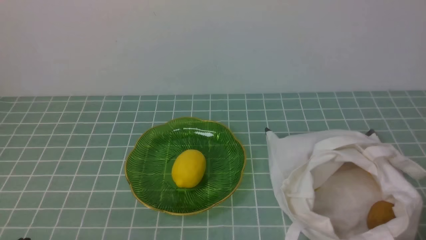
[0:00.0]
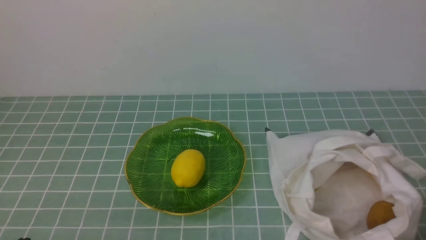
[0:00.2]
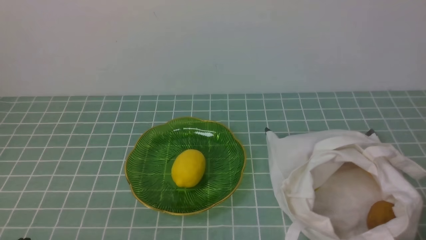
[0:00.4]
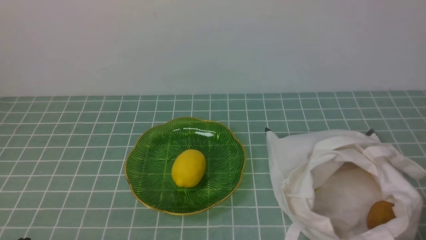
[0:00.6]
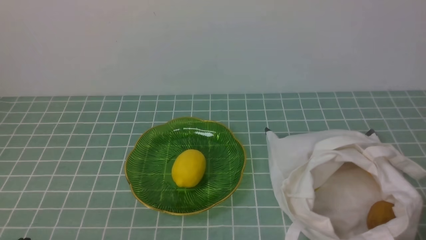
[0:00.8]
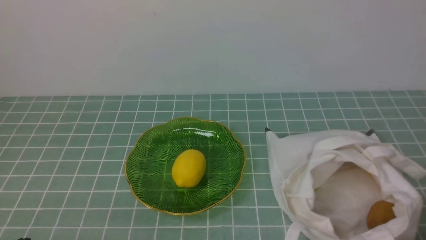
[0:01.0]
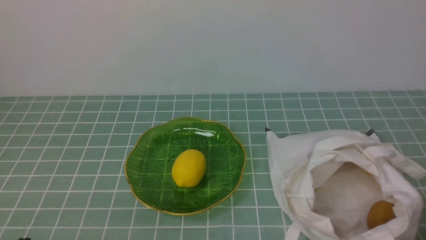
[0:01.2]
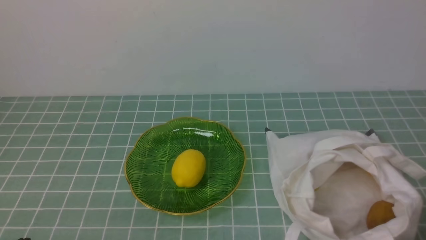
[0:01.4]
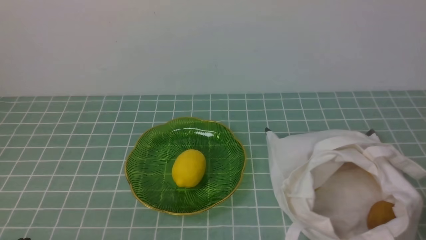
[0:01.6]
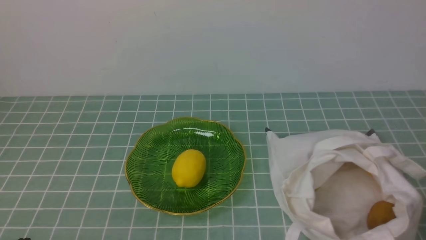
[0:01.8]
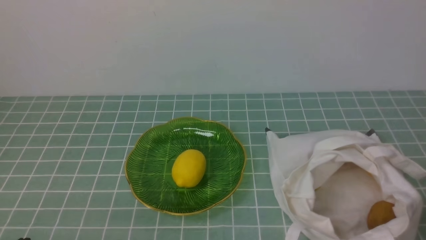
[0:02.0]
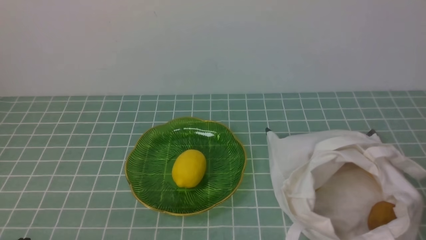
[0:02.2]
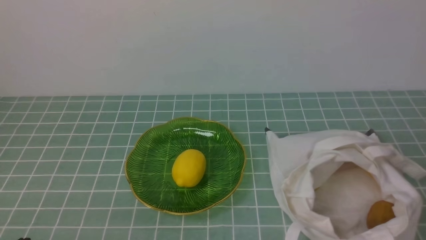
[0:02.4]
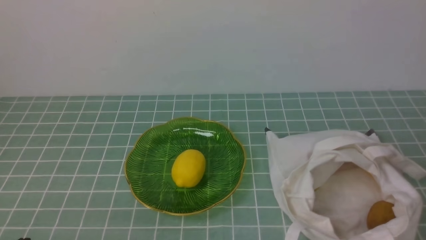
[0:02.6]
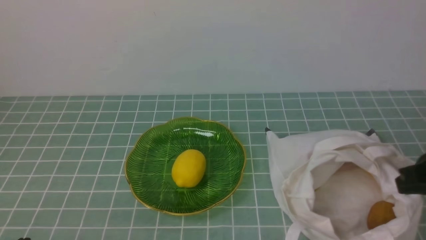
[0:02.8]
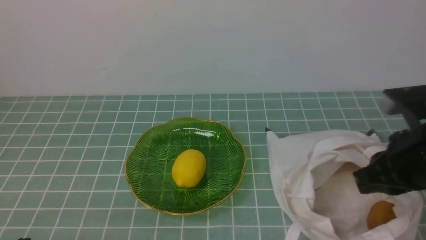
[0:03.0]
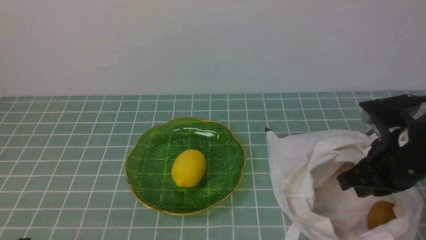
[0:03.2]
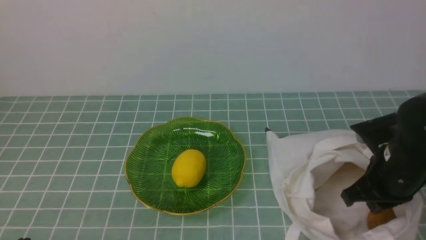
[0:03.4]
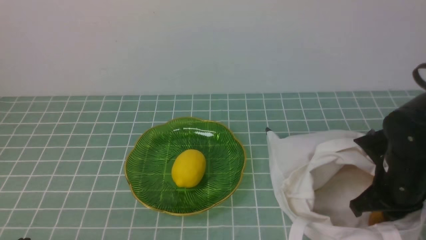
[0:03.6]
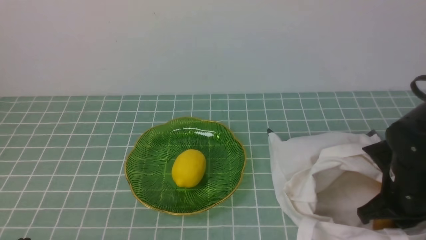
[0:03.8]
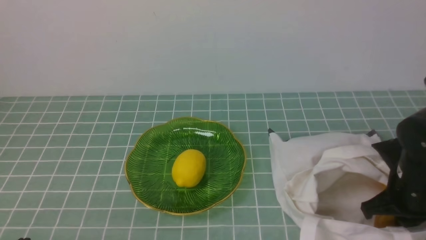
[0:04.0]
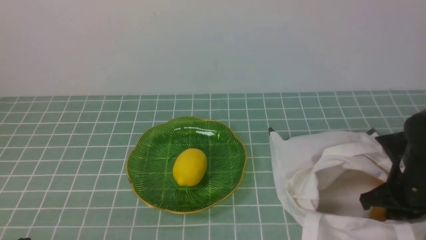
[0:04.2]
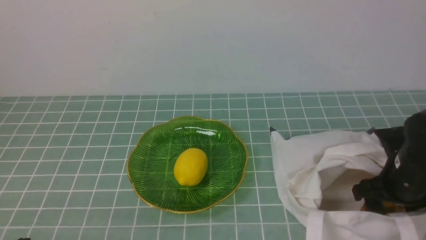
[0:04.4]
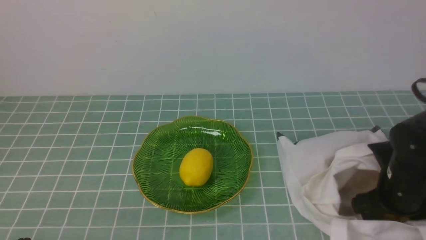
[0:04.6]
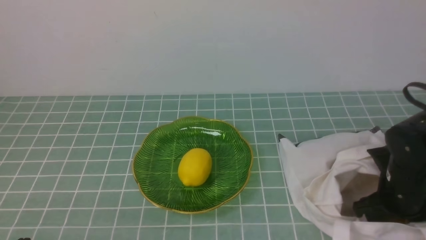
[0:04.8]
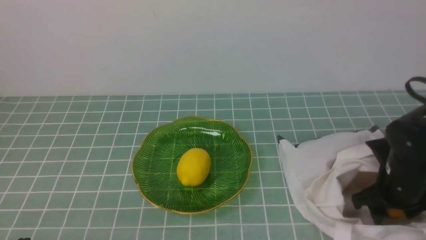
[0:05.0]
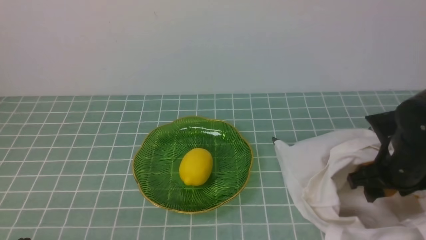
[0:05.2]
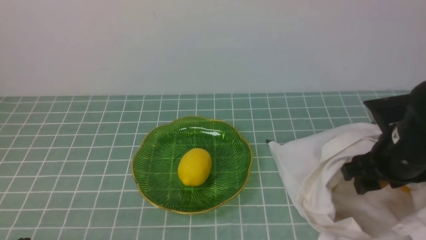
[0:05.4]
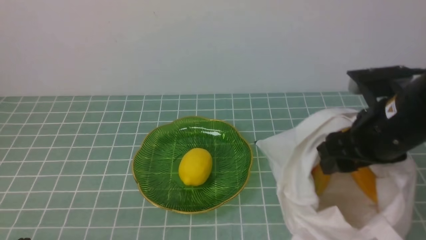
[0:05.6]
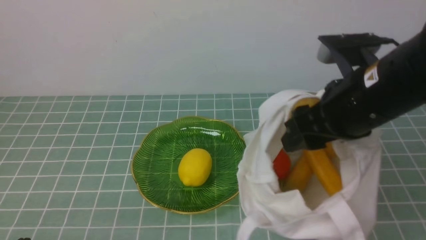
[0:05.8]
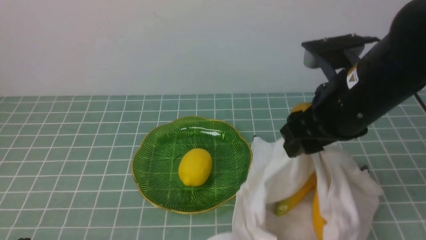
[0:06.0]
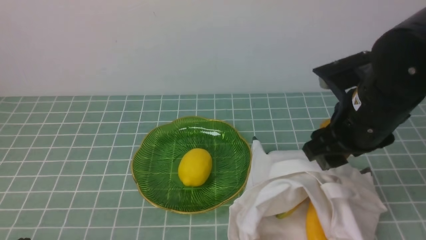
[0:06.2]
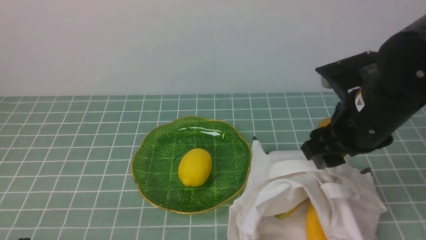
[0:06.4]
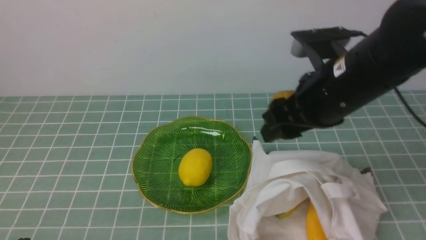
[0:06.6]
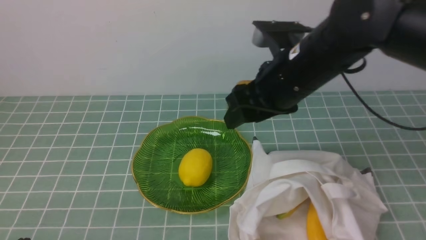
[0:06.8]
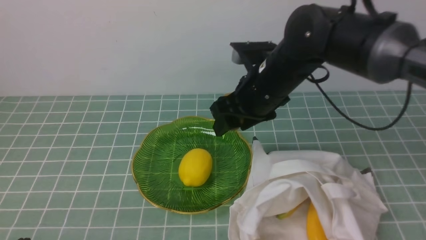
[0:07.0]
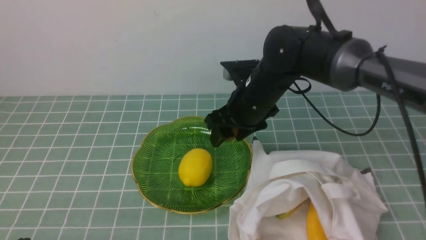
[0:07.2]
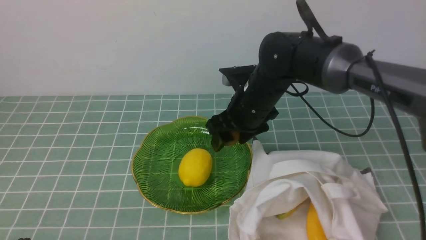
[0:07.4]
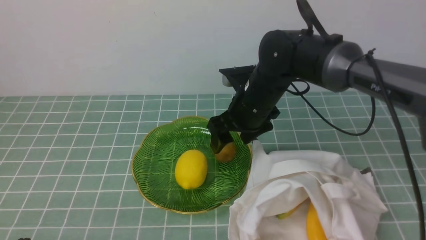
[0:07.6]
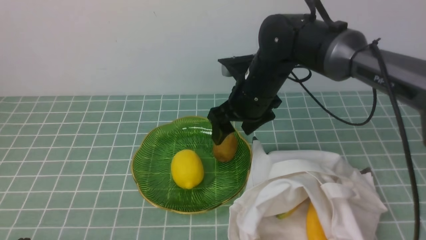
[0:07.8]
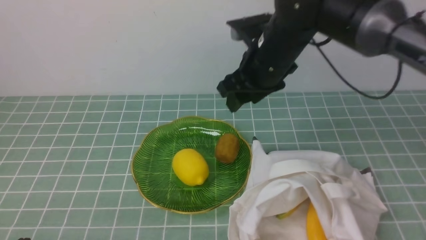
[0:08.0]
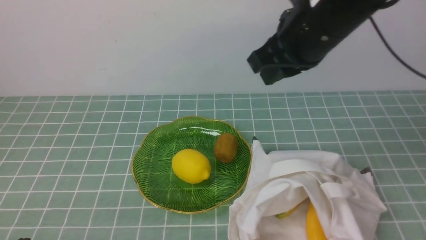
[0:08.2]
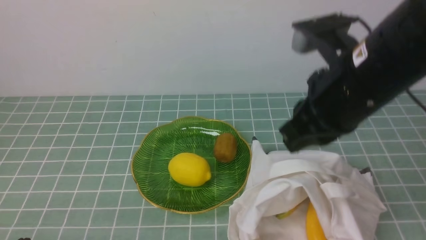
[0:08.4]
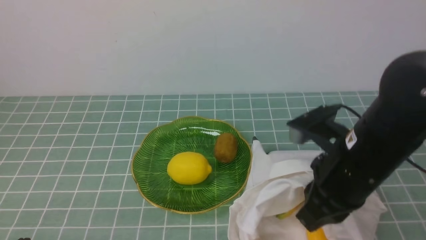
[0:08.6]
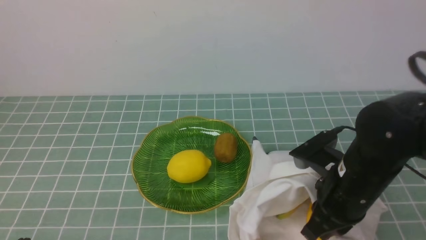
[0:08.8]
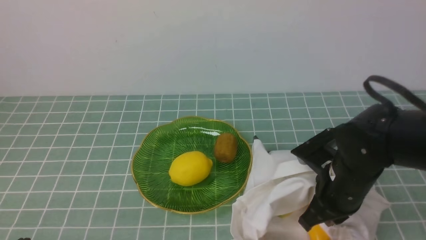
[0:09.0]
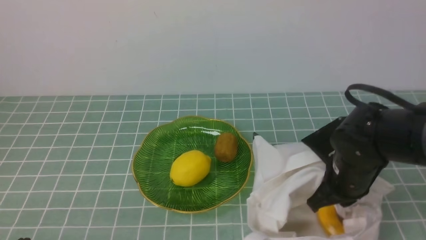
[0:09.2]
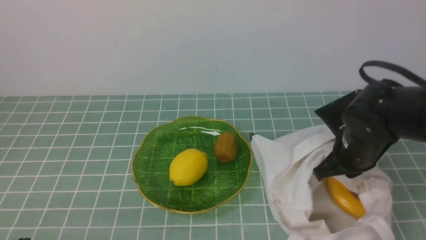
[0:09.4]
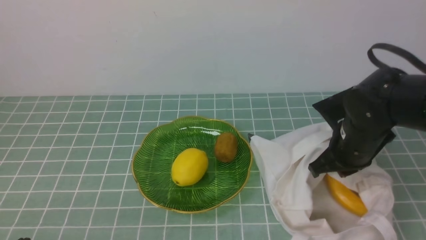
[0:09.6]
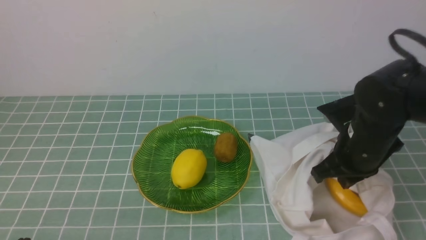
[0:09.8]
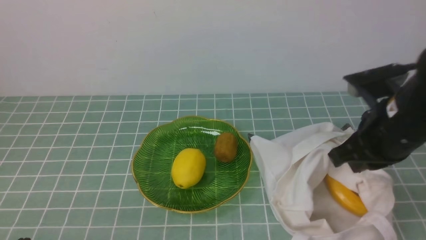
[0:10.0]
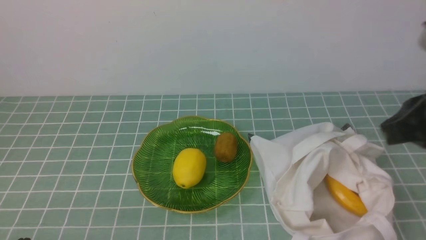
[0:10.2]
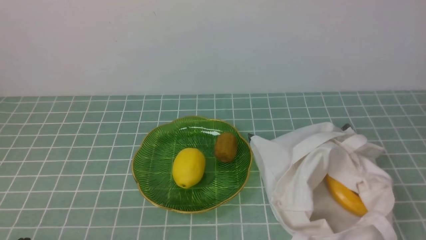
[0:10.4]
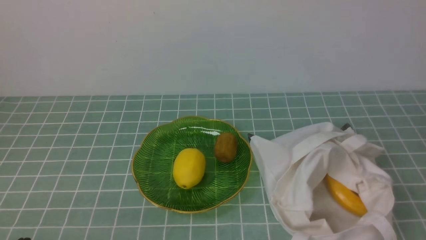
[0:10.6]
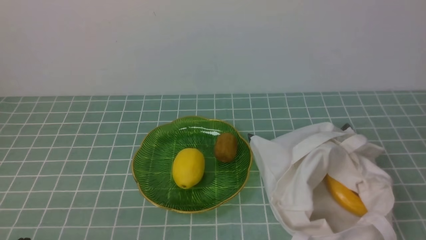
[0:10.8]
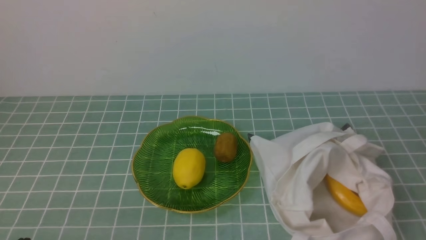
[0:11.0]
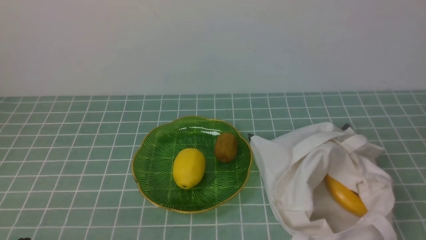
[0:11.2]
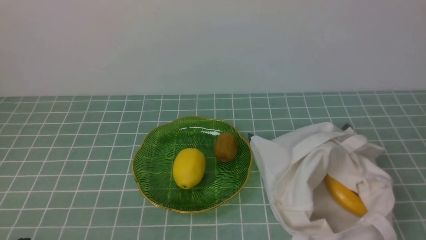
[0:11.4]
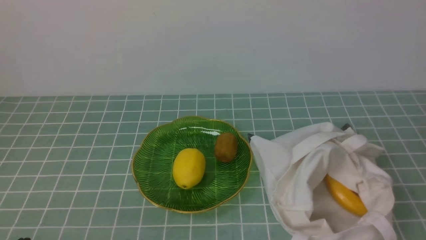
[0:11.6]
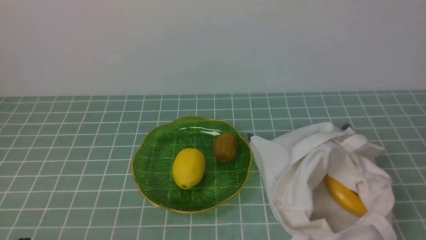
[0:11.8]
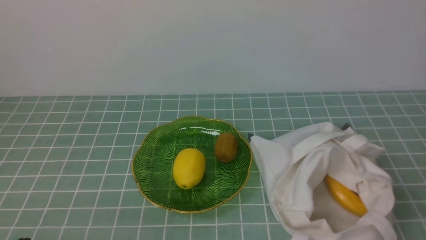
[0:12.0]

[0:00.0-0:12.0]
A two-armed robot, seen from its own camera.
Step, 0:00.0 to 0:06.0: use the right arm to grab a kiwi from the bag.
Step, 0:06.2 to 0:07.8: use the right arm to put the kiwi into the empty plate on the left.
0:01.6 to 0:03.0: The right gripper is displaced forward and upward by roughly 20 cm.
0:03.0 to 0:04.4: The right gripper is displaced downward by roughly 10 cm, and opens up.
0:04.4 to 0:06.0: The right gripper is displaced upward and to the left by some 20 cm.
0:06.0 to 0:07.6: The right gripper shifts about 20 cm forward, to the left and downward.
0:07.6 to 0:09.0: The right gripper travels backward and to the right by roughly 15 cm, goes upward and returns, about 15 cm each way, and closes its fingers.
0:09.0 to 0:10.4: The right gripper shifts approximately 30 cm upward, backward and to the right.
0:10.4 to 0:12.0: The right gripper moves downward, some 15 cm.

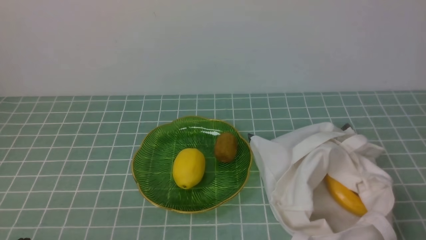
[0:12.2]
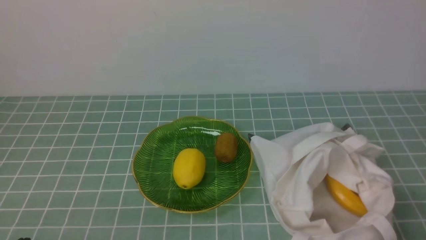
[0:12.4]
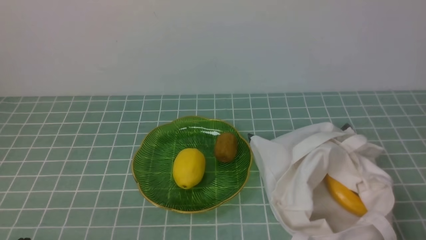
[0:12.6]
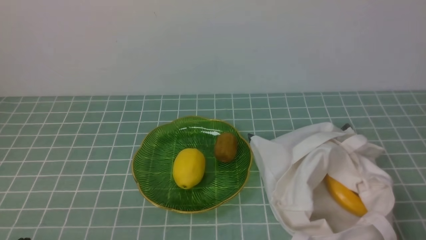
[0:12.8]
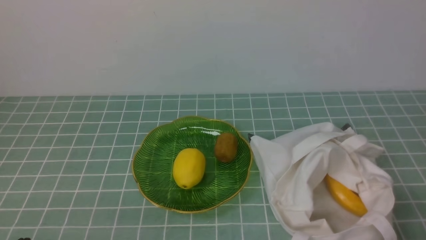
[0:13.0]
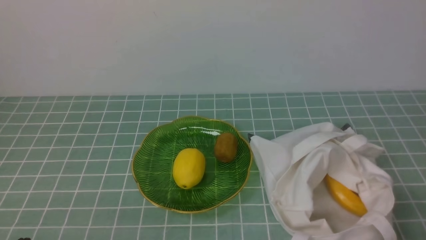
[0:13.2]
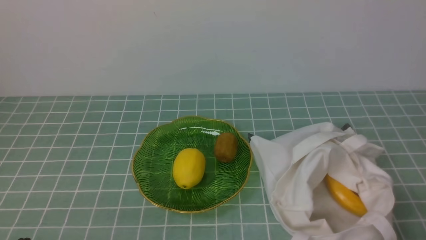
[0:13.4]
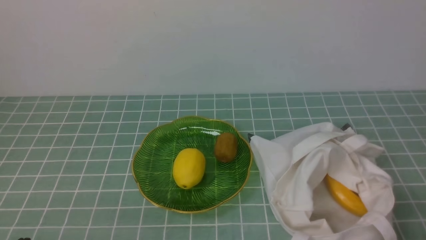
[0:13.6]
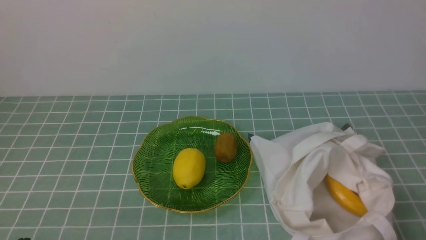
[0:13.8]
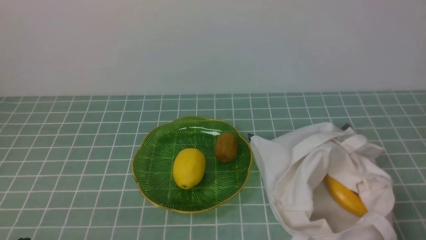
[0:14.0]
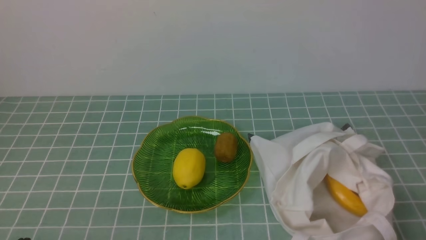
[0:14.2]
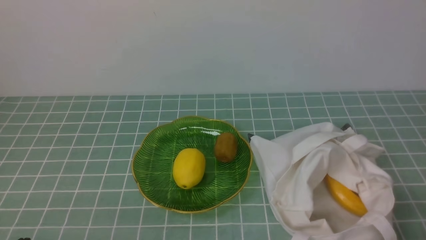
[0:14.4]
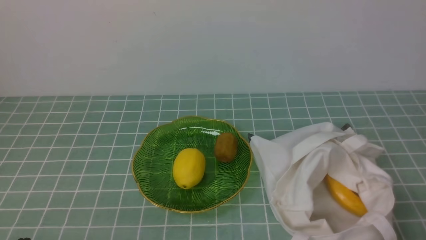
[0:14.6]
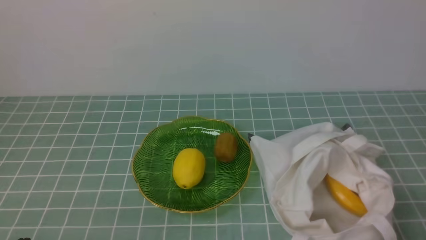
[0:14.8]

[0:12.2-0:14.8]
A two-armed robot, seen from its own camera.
0:13.4 to 0:14.8: Both grippers stay put.

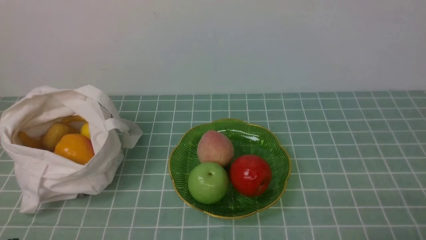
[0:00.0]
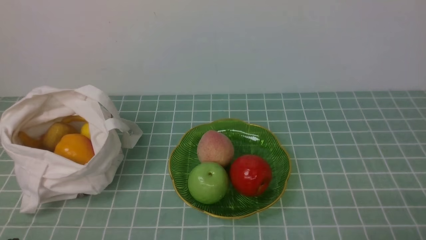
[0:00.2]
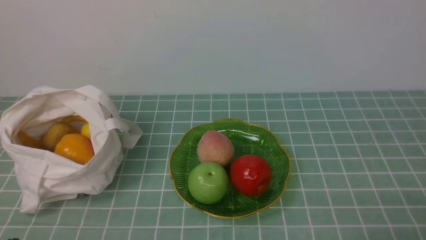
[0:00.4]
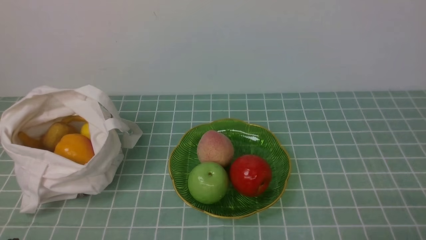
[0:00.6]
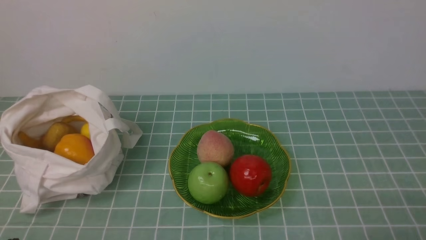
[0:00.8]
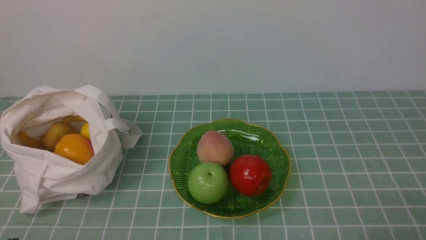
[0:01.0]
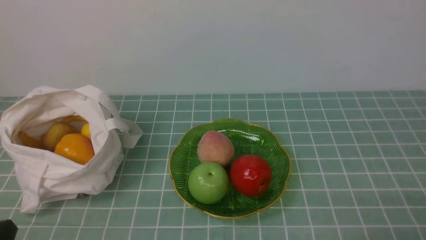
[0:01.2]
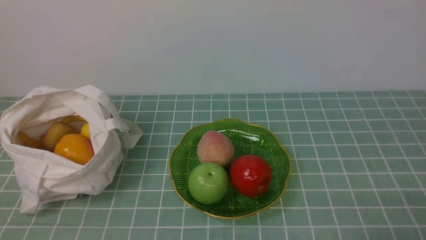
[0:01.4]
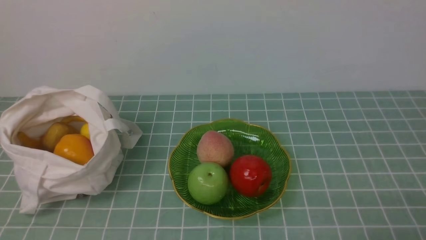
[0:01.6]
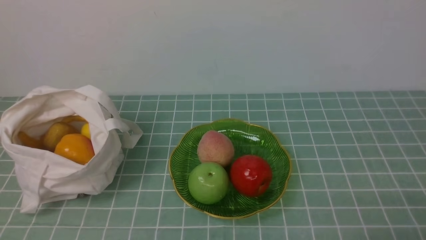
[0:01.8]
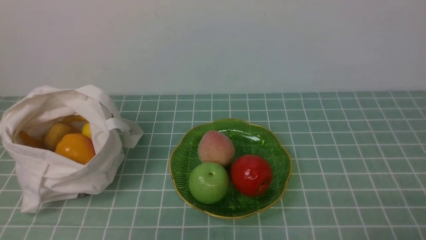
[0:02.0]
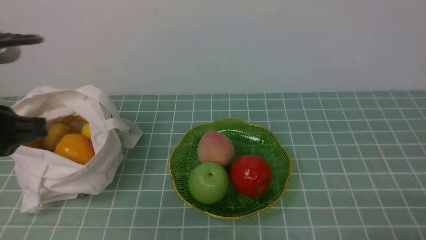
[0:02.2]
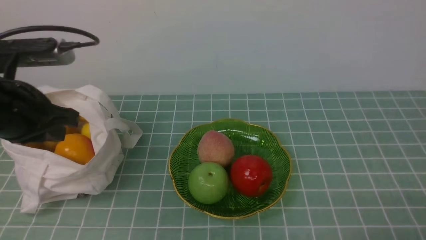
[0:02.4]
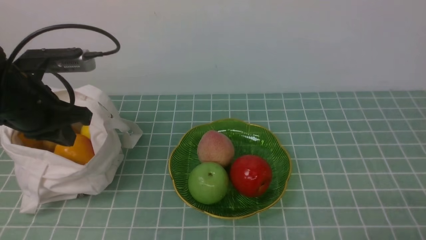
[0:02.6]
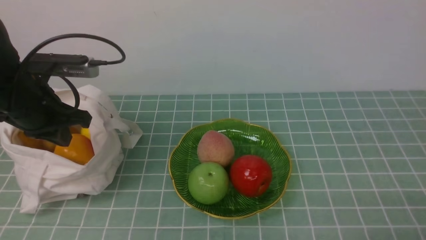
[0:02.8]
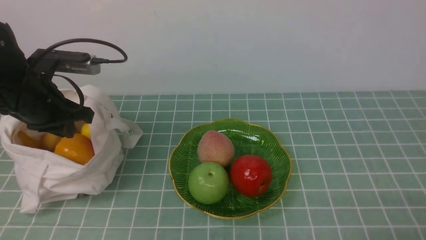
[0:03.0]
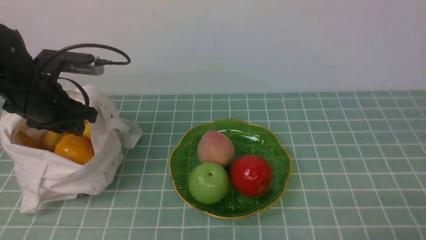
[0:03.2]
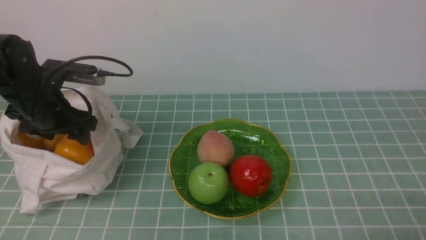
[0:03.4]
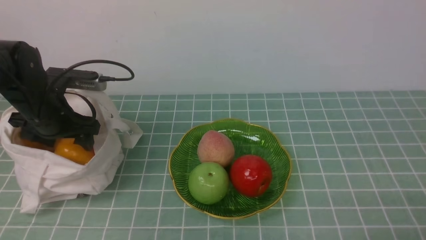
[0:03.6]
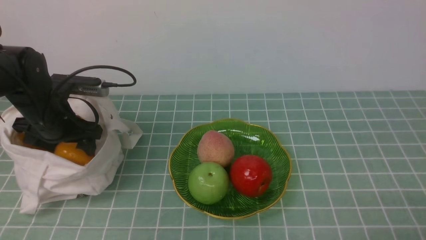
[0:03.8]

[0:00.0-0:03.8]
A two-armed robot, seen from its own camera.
0:01.2 to 0:02.6: The left gripper shifts about 25 cm forward and upward.
0:02.6 to 0:03.8: The left gripper moves downward and forward, approximately 10 cm, and opens up.
